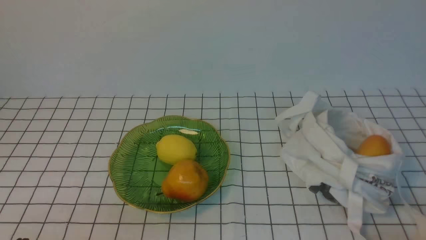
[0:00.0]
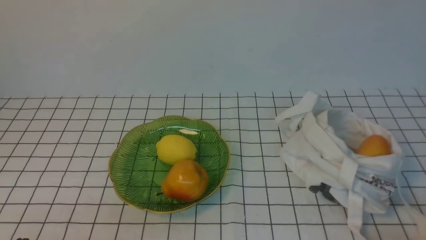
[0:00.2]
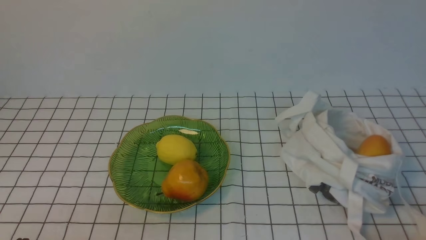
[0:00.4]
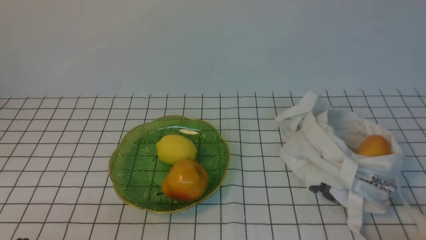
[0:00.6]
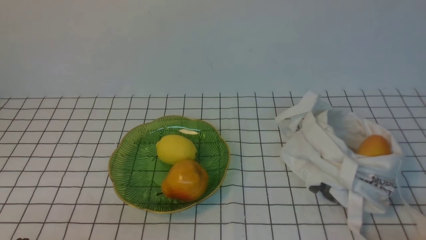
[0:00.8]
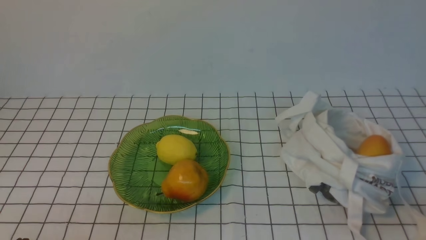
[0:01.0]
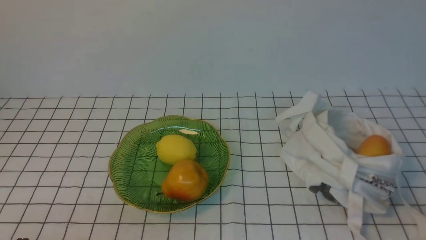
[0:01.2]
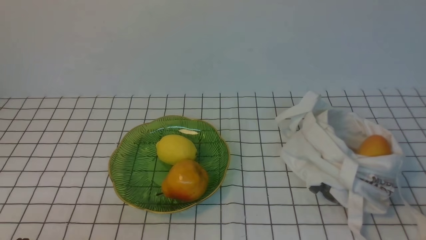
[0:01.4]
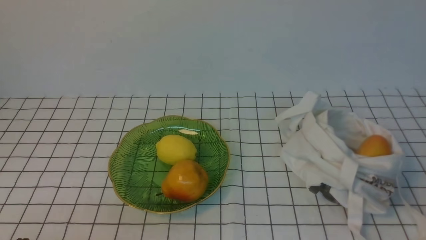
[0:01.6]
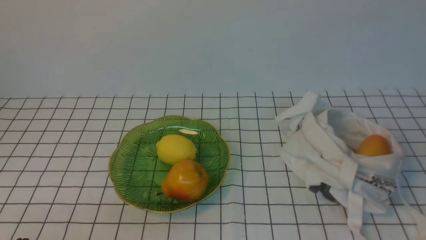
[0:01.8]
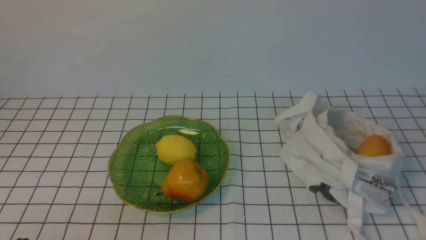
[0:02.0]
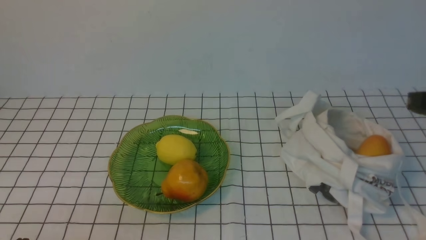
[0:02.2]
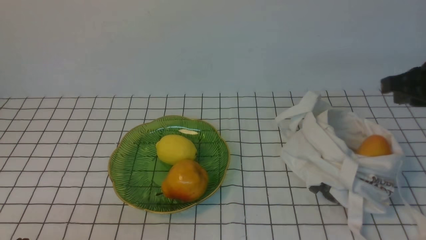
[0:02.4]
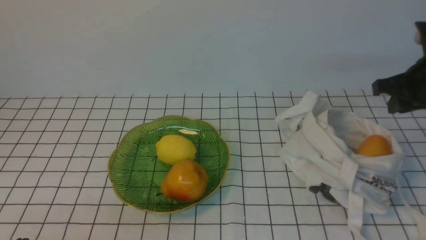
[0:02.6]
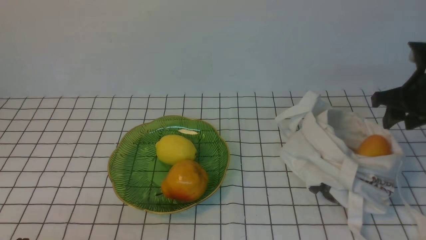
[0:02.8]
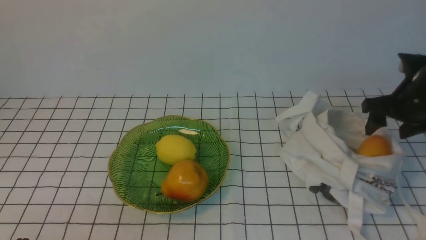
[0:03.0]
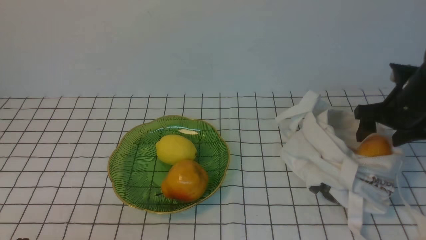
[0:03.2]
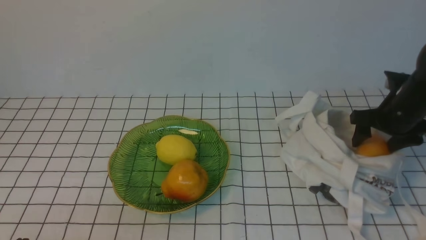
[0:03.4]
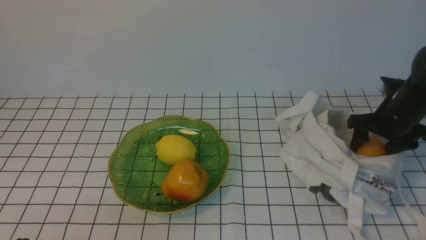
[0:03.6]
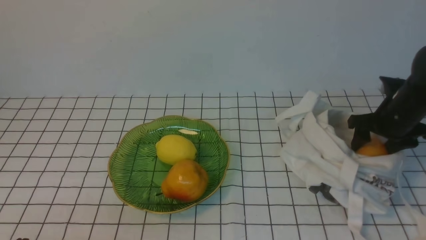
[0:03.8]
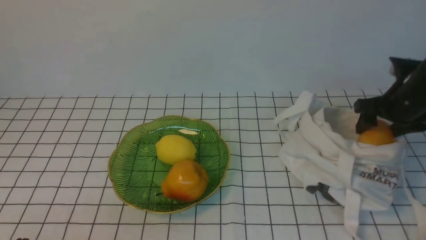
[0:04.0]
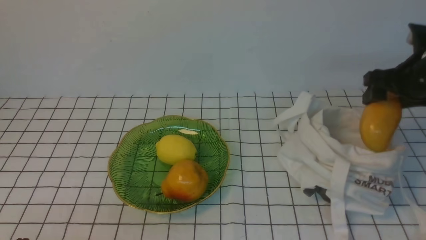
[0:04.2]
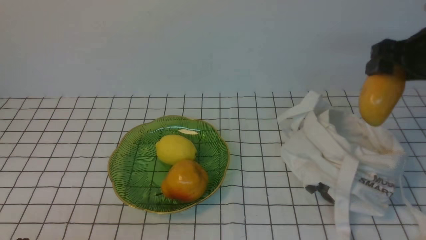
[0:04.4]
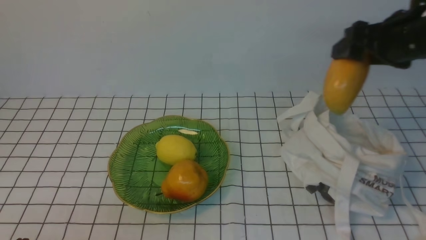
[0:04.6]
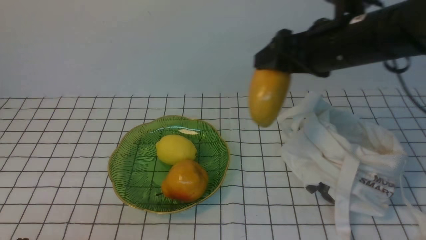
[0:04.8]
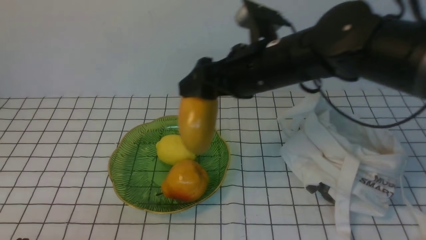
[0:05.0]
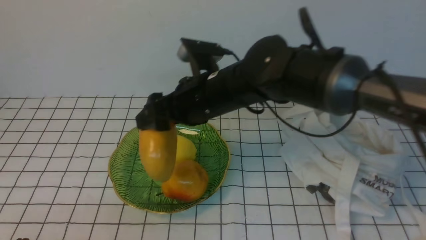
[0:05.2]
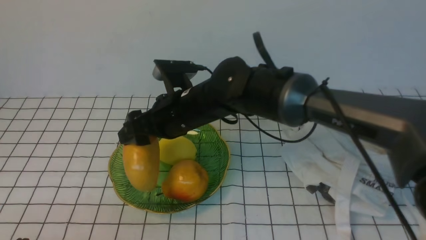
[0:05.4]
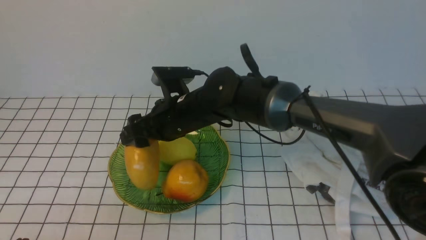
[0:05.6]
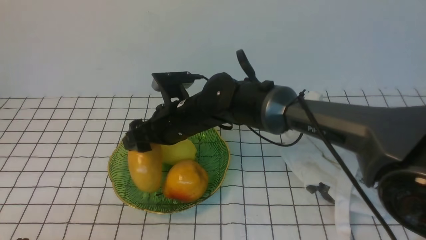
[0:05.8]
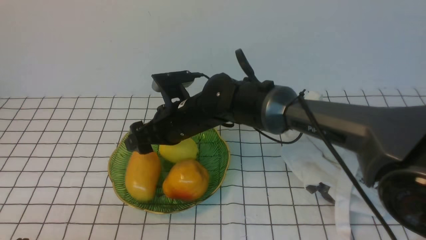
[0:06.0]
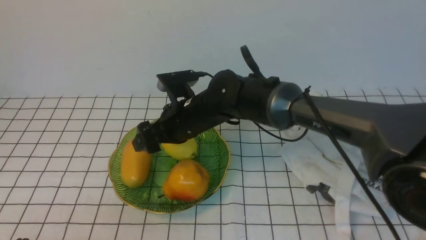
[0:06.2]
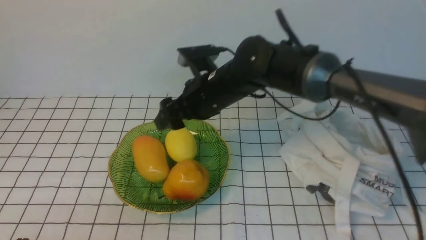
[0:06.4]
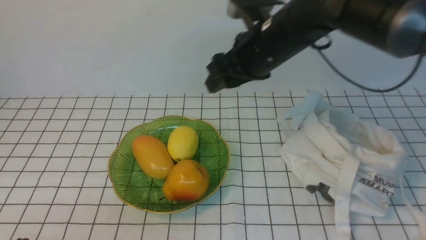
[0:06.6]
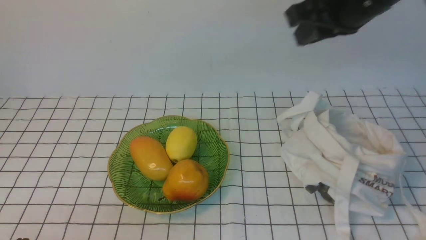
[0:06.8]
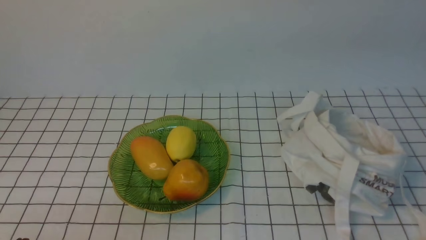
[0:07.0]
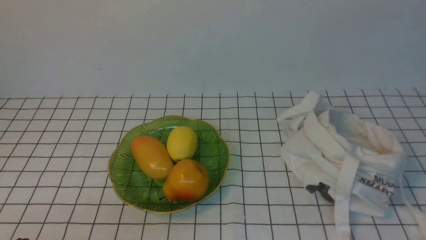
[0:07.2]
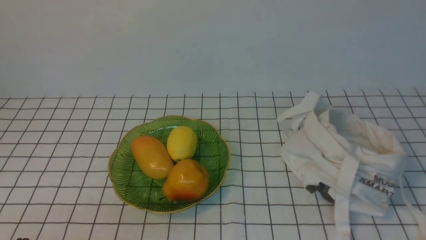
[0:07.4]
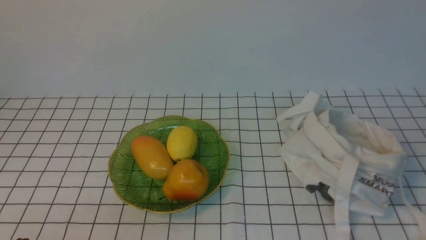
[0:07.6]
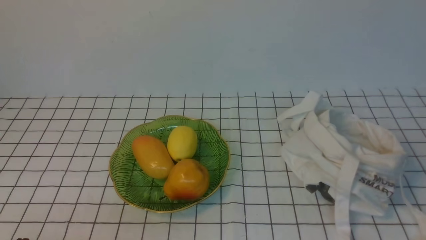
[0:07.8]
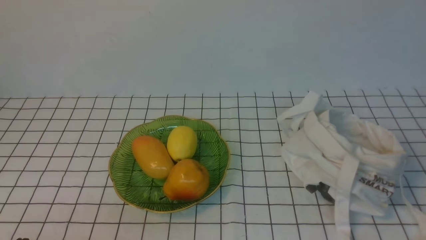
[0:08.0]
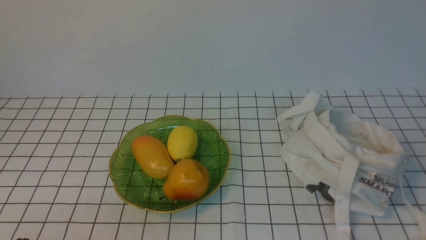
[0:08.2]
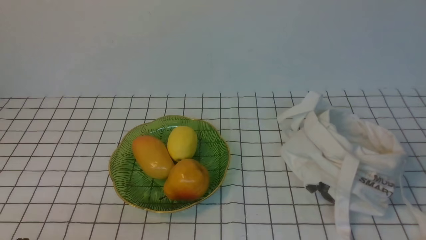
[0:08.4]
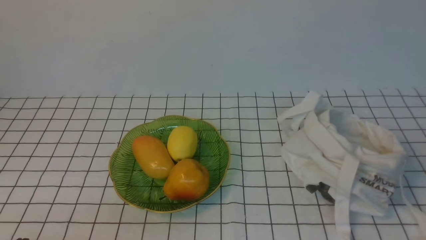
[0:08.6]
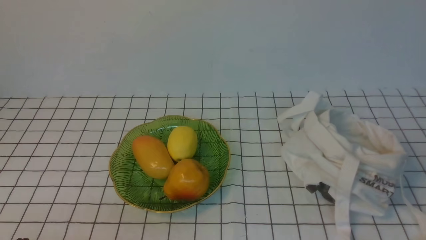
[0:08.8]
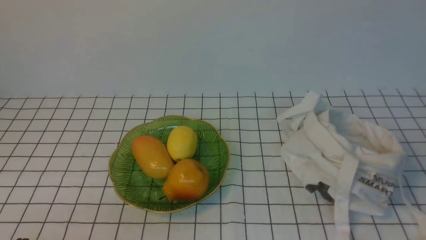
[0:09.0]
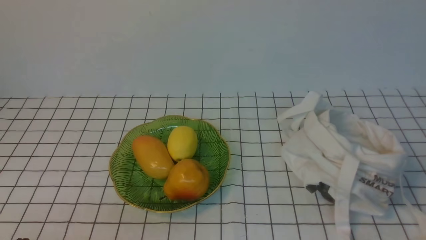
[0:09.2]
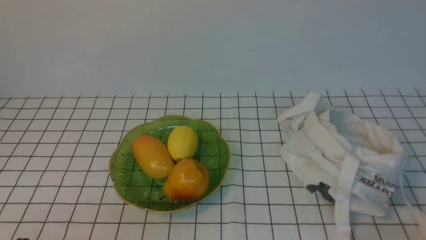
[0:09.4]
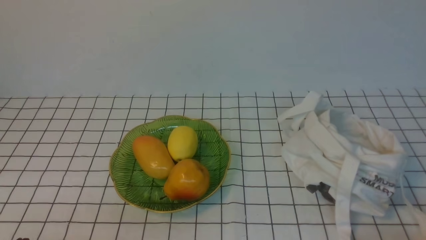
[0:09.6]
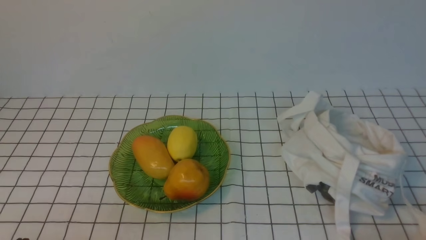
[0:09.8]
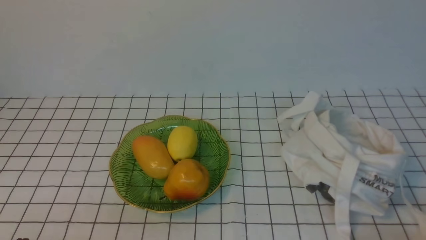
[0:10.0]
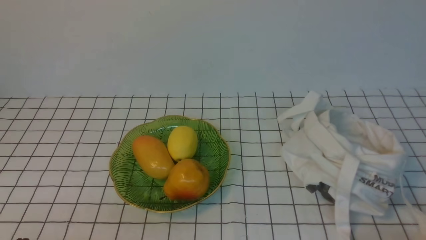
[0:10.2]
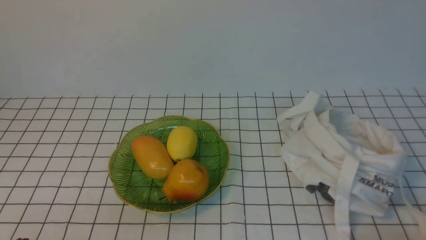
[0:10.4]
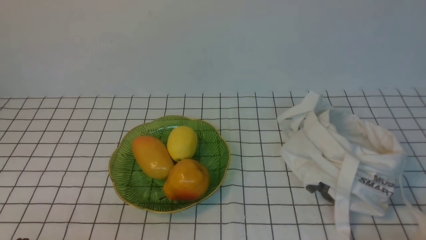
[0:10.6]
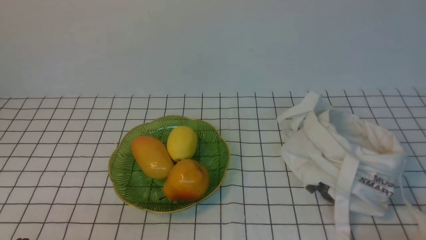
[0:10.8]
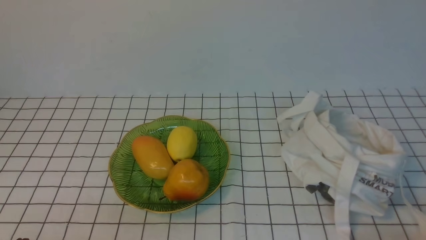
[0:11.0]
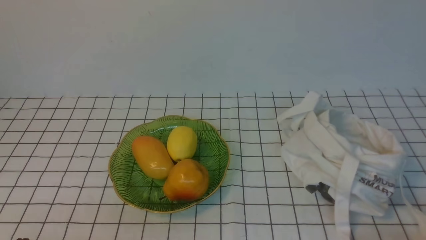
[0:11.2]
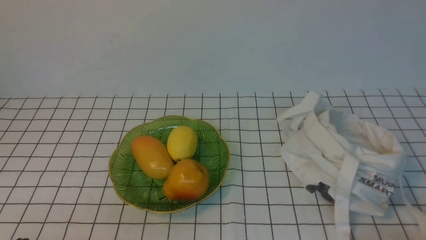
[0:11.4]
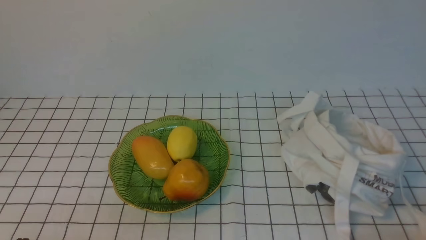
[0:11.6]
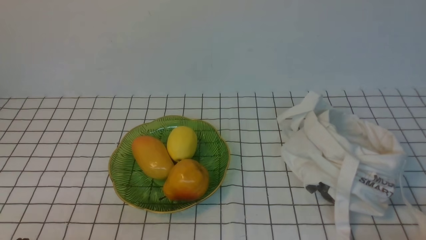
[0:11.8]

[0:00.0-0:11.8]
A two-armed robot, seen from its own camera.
Step, 0.0 to 4.2 s: use the right arm to grab a mango from the bag.
Step, 4.4 to 6.0 s: use the right arm to put the mango into the empty plate on the left.
1.4 to 3.0 s: The right gripper moves forward, roughly 30 cm, and opens its fingers.
3.0 to 4.4 s: The right gripper moves upward, approximately 10 cm.
4.4 to 6.0 s: The right gripper shifts roughly 35 cm to the left.
6.0 to 7.4 s: The right gripper heads to the right, backward and upward, covering some 50 cm, and closes up.
10.4 to 11.8 s: Both grippers stay put.

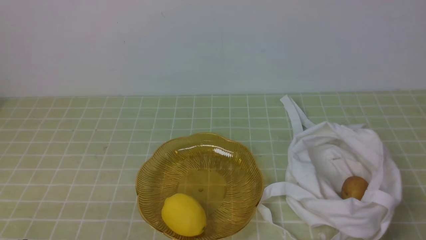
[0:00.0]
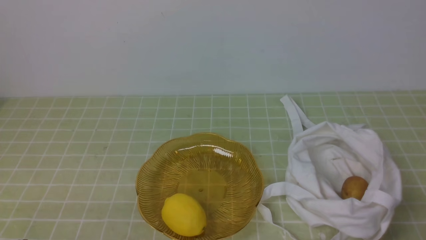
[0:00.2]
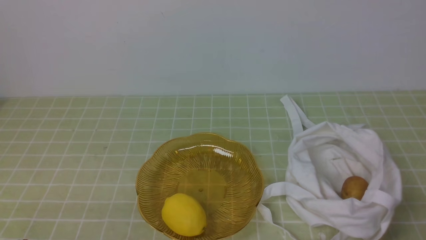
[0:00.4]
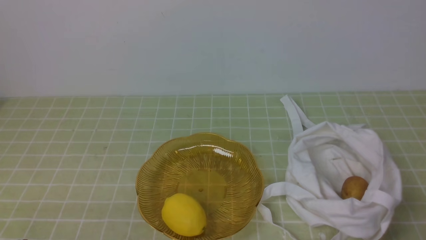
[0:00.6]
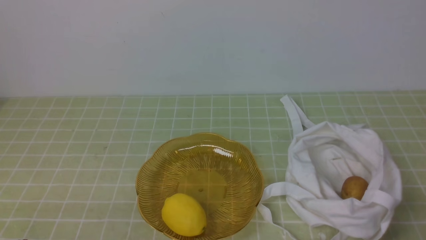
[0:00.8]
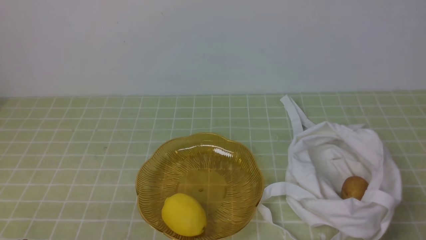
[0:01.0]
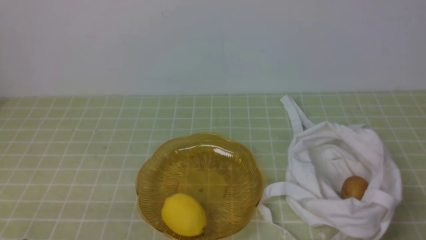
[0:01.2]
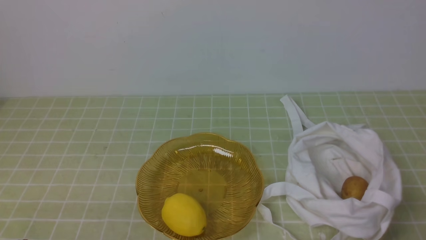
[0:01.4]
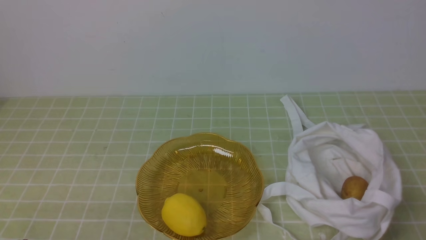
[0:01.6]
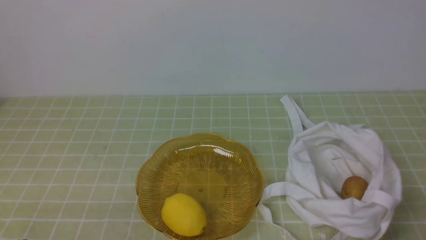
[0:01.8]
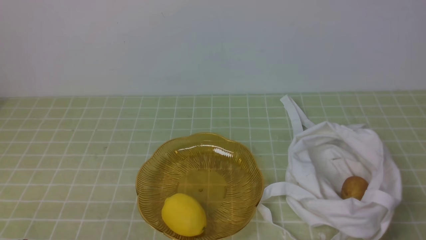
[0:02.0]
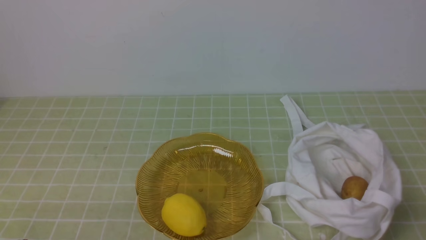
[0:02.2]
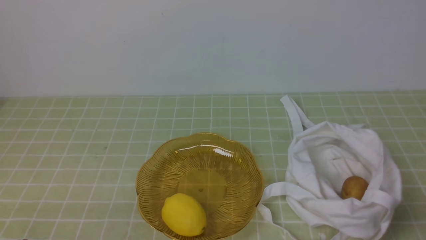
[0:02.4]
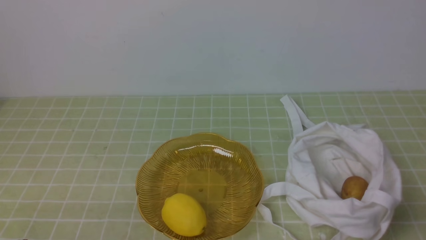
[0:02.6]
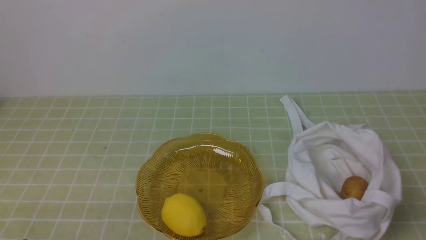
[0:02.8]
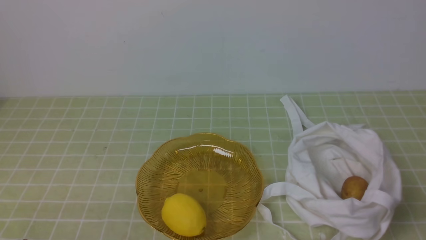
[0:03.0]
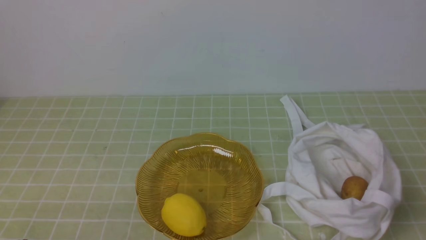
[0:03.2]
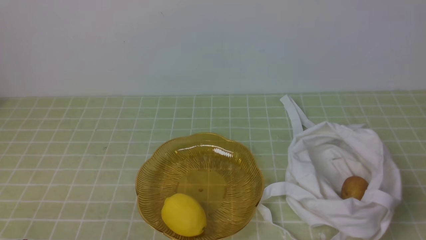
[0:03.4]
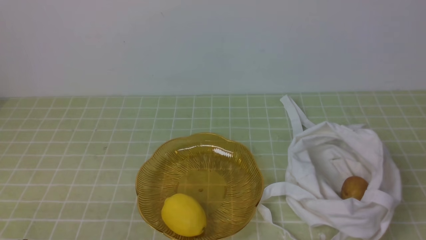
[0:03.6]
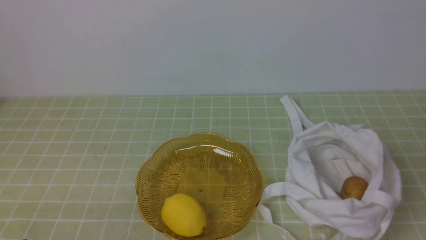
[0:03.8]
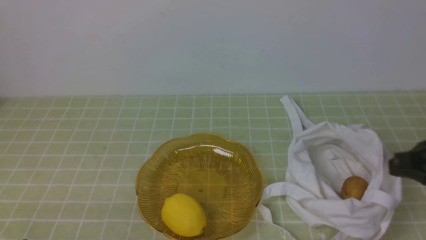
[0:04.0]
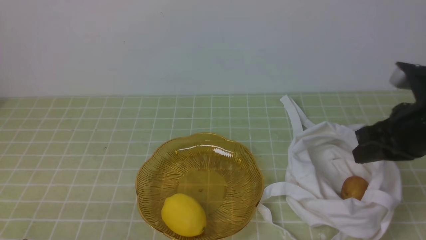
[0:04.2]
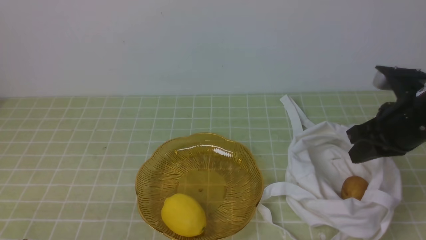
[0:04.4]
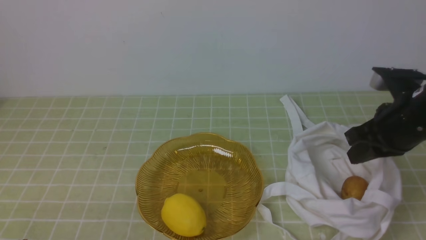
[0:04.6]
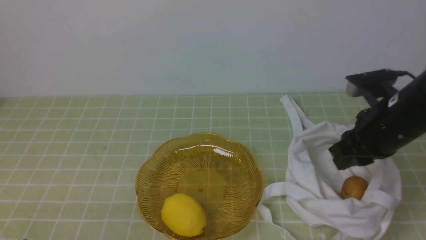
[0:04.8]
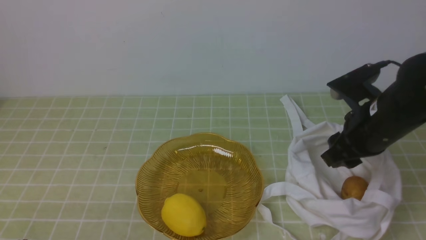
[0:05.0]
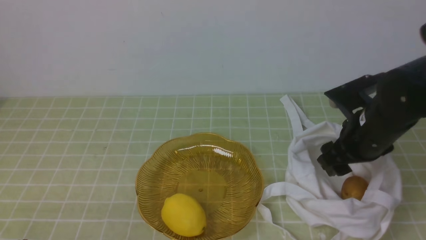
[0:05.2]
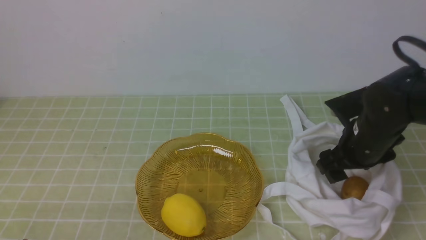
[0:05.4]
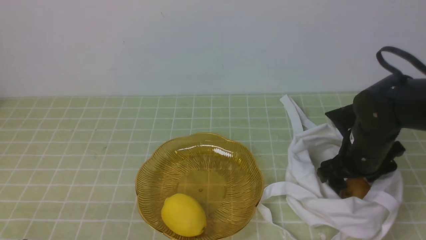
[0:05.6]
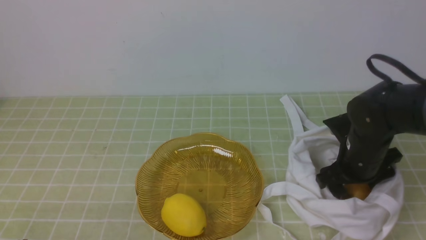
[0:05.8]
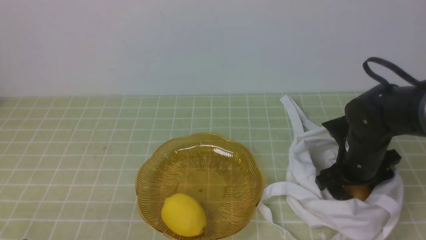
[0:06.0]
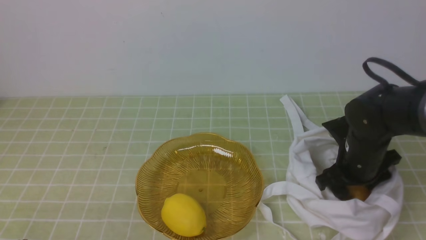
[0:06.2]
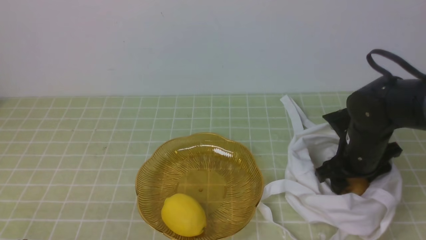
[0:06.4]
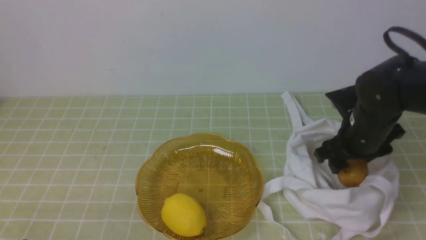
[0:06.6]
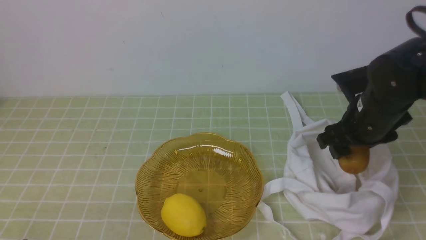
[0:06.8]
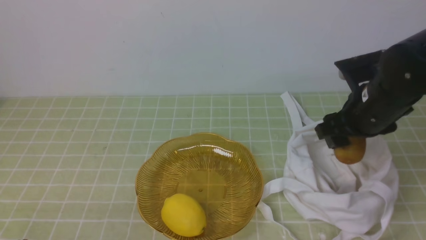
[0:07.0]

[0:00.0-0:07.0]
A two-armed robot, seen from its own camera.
Step, 0.0 to 6.4 s: use the right arm to grab a kiwi from the bag.
0.0 to 1.4 s: Both grippers stay put.
2.8 to 4.2 s: The right gripper goes roughly 20 cm forward and upward.
4.2 to 5.6 s: The right gripper heads downward and forward, covering about 10 cm, and opens its fingers.
5.6 to 7.0 s: The right gripper heads upward, covering approximately 5 cm.
